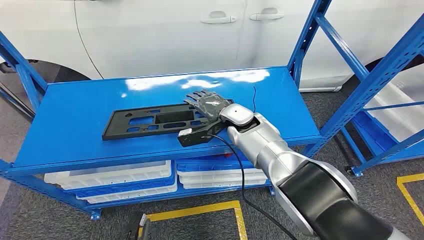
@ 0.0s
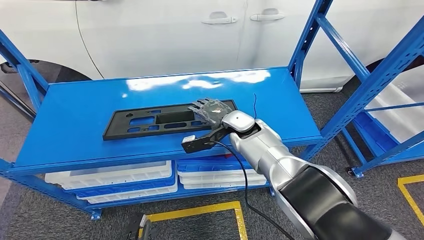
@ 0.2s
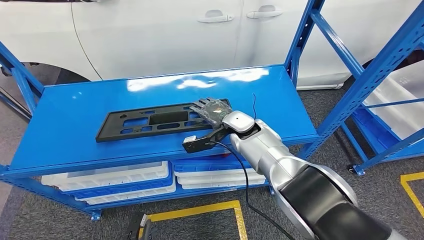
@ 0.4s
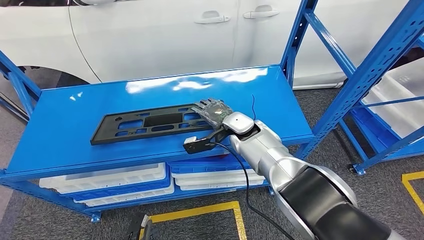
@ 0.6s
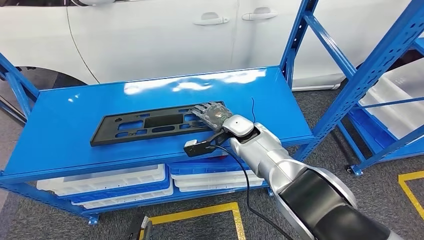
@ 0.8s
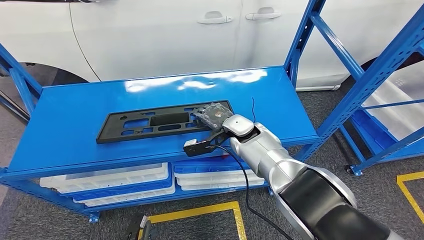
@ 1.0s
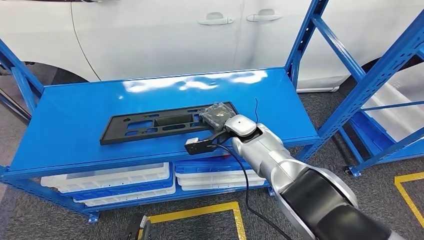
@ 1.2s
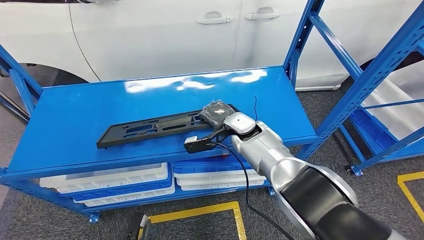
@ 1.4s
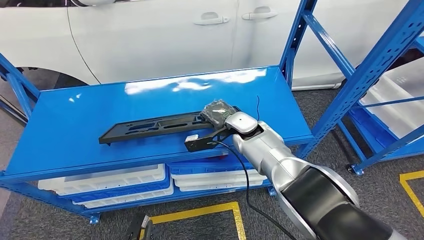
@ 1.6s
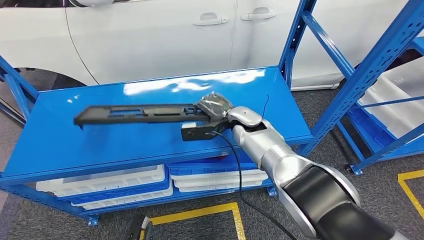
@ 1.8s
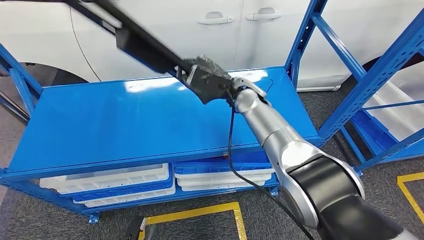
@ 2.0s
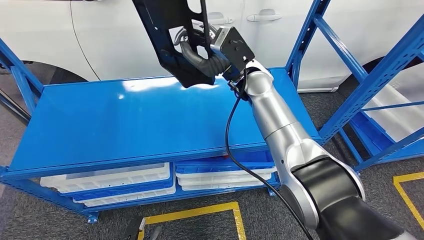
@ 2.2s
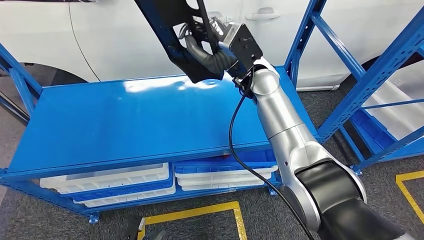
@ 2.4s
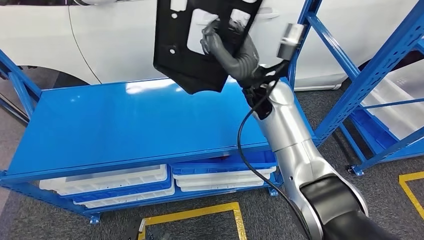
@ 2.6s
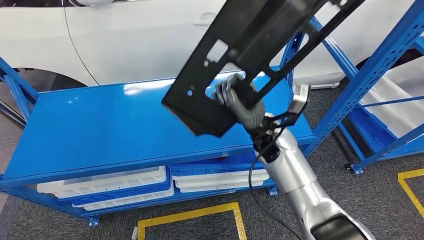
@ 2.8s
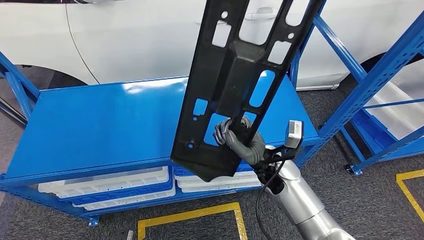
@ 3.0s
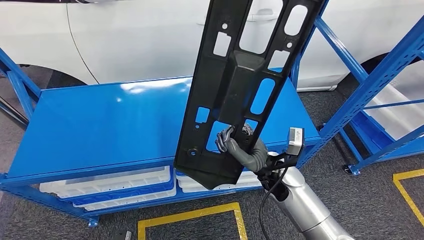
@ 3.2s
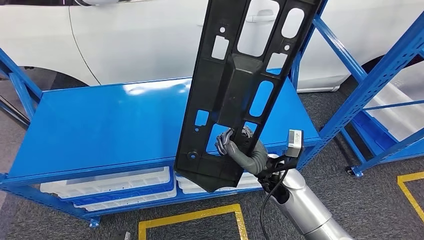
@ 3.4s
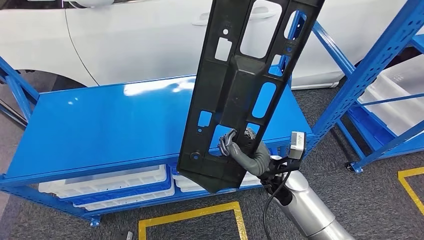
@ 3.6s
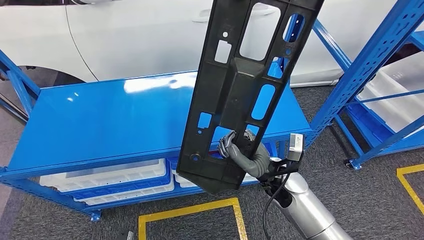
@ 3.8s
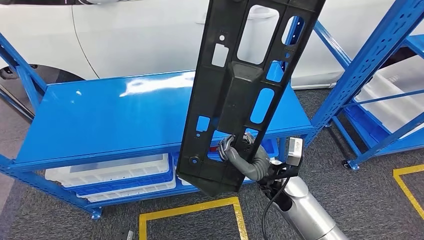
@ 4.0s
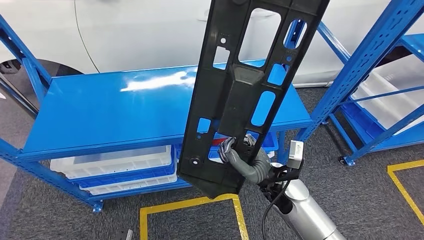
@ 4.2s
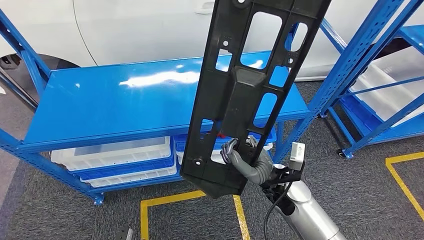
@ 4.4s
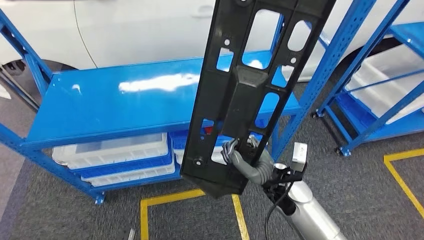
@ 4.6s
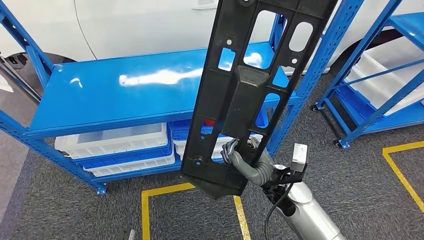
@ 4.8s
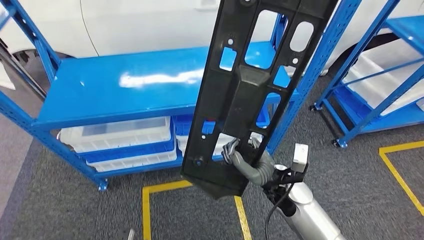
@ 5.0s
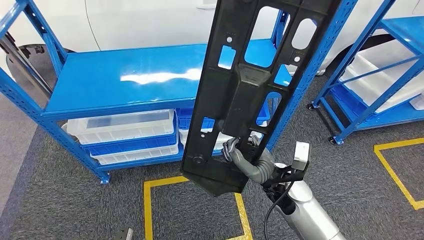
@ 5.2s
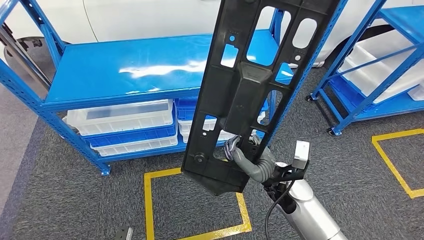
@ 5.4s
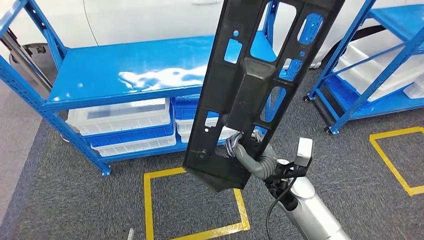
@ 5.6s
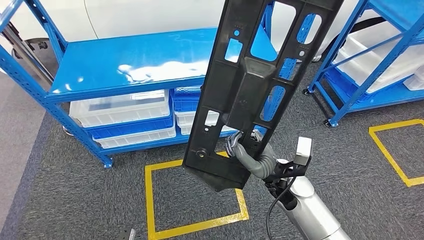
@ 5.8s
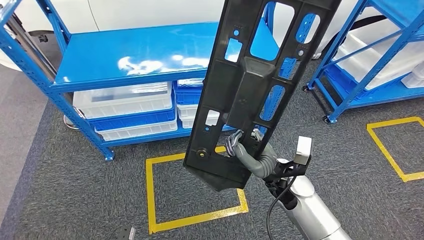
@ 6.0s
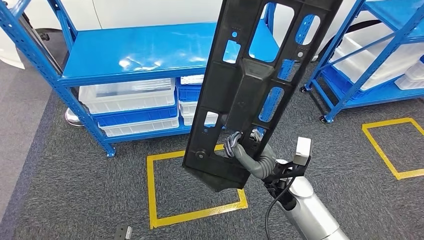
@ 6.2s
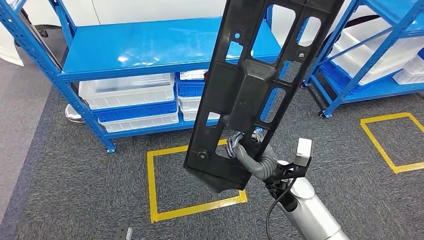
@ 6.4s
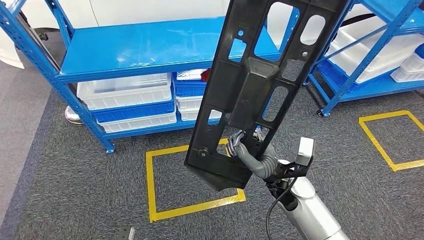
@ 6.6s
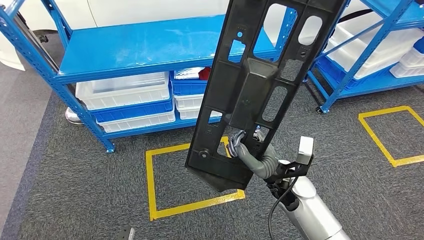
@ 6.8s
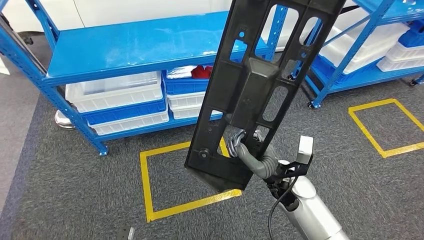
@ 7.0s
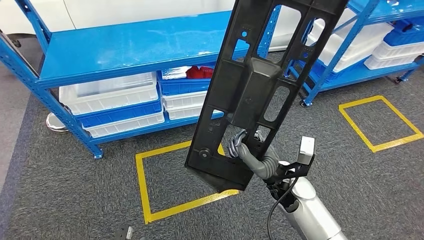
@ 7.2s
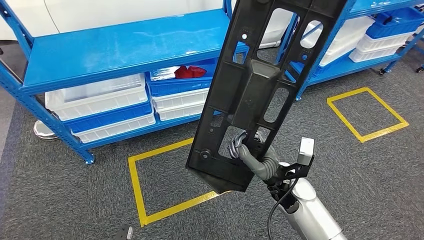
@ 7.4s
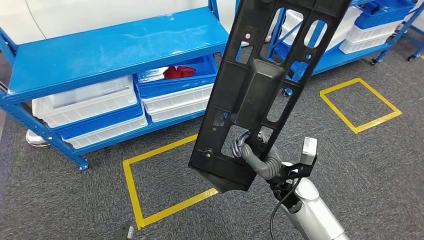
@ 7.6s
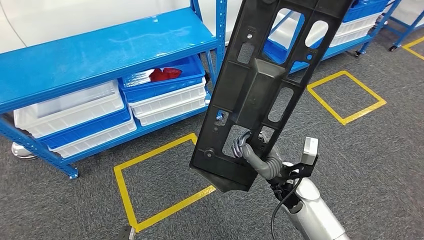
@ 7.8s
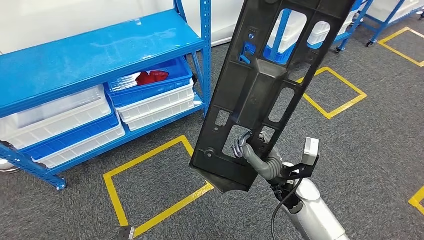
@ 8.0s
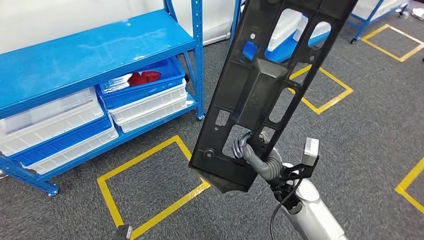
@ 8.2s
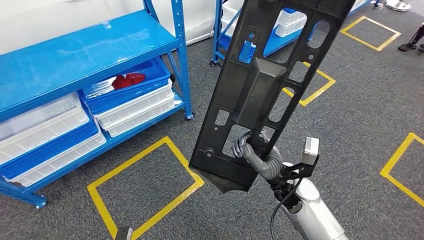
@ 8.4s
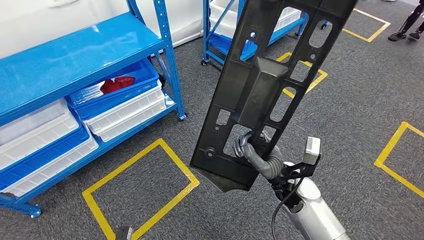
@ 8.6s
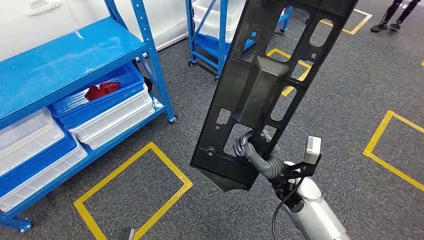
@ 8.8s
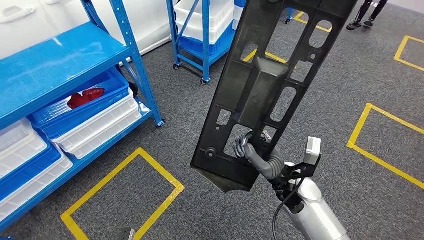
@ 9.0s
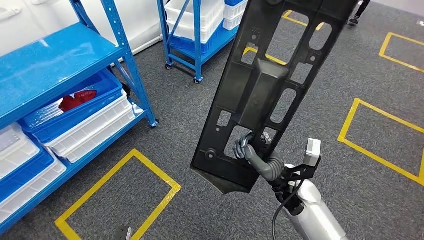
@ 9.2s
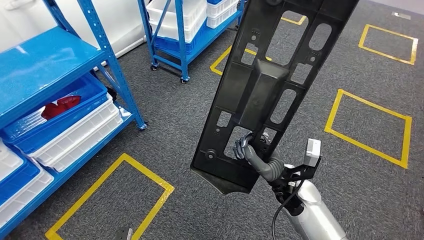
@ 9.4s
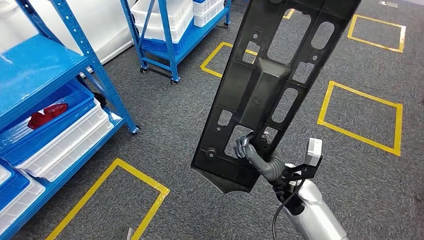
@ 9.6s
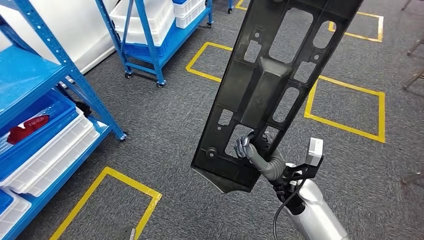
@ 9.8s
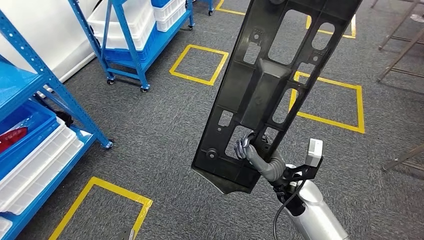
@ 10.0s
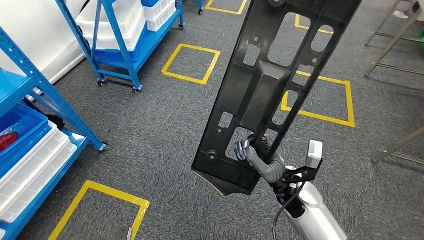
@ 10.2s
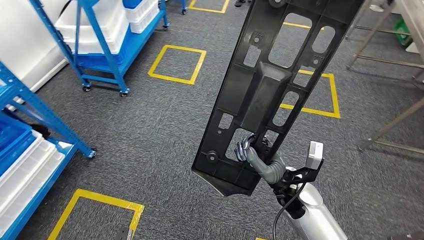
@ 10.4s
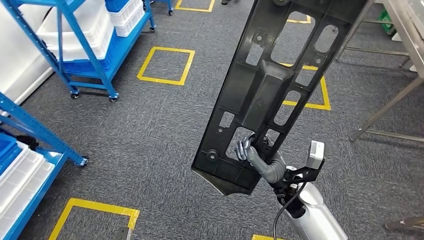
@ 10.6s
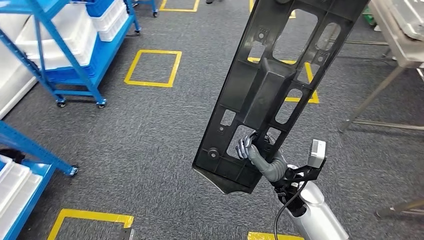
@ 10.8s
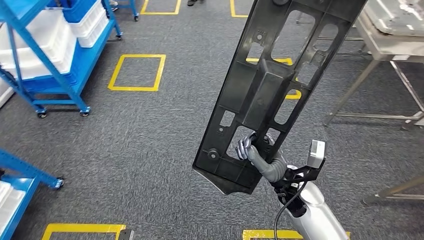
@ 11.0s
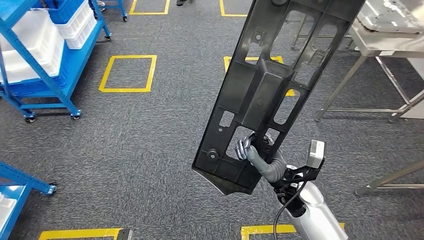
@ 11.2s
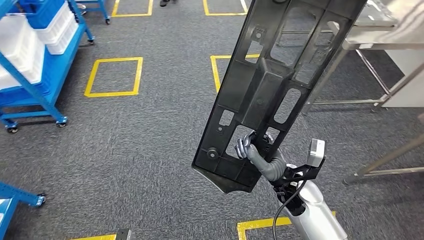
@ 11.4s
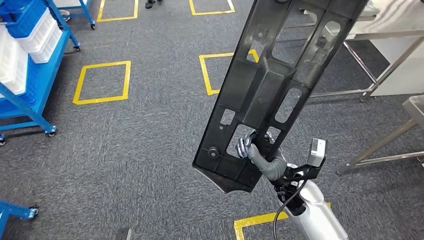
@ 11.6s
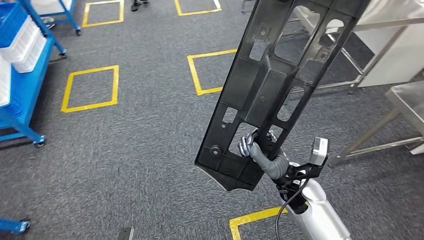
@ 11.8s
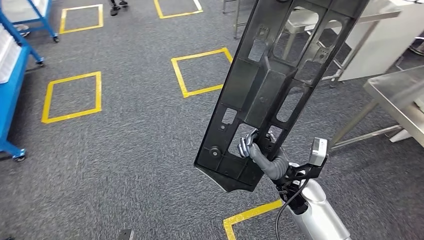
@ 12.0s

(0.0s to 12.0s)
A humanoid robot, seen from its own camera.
Step, 0.0s - 3.6s: Pick up the large material from the shelf.

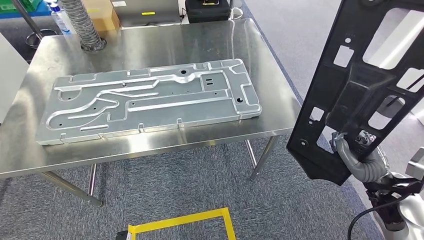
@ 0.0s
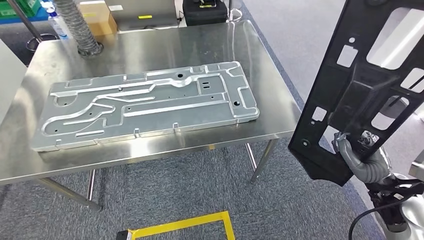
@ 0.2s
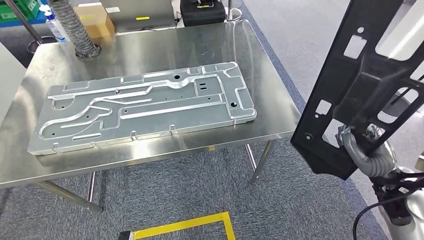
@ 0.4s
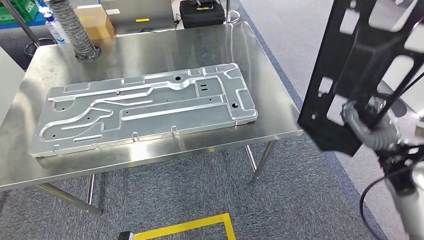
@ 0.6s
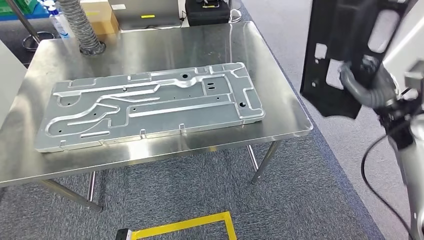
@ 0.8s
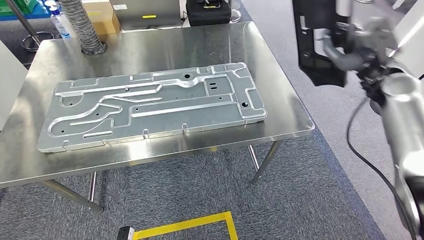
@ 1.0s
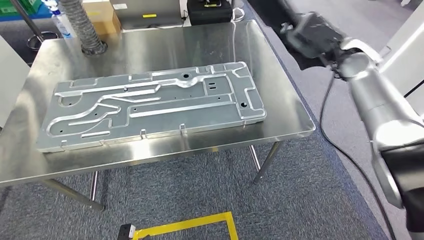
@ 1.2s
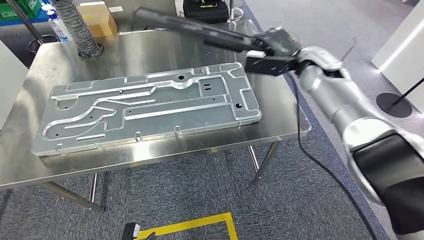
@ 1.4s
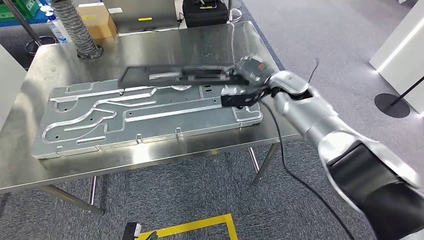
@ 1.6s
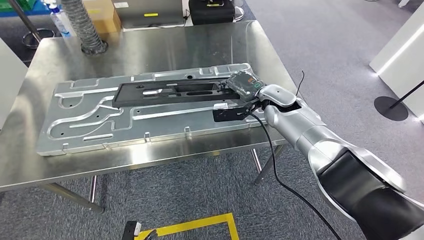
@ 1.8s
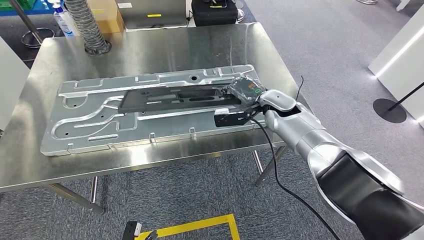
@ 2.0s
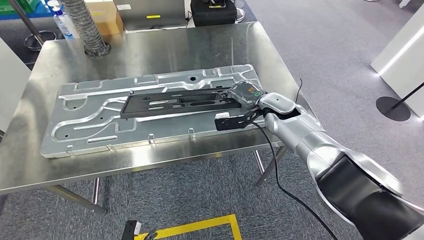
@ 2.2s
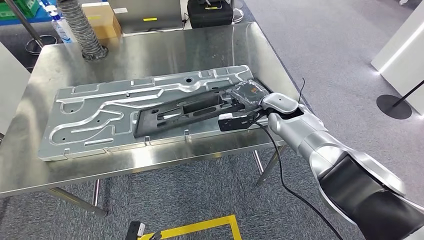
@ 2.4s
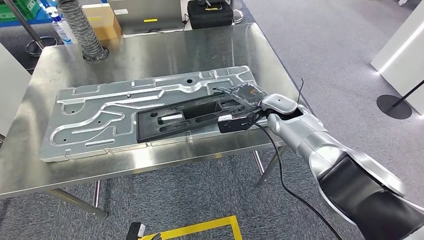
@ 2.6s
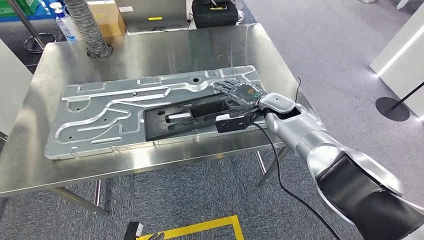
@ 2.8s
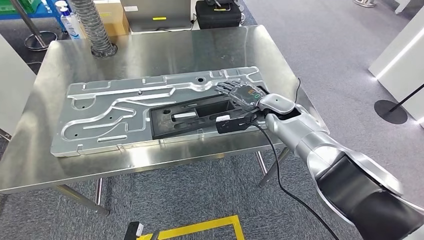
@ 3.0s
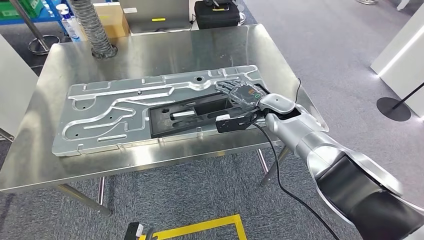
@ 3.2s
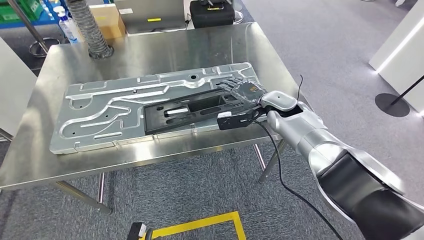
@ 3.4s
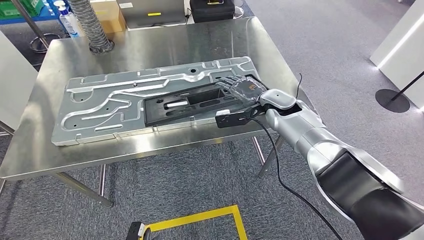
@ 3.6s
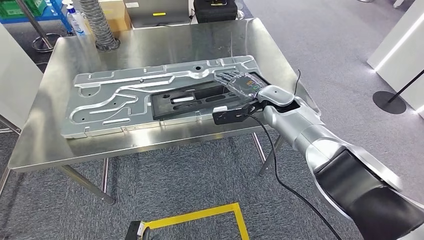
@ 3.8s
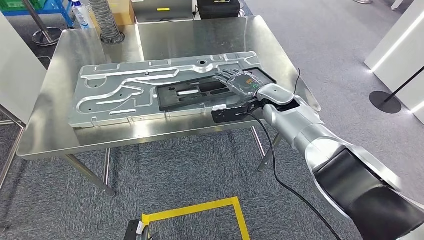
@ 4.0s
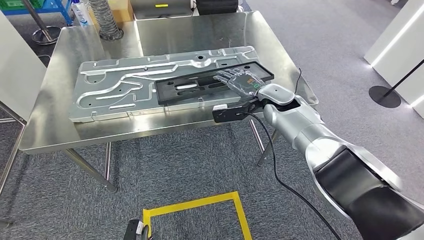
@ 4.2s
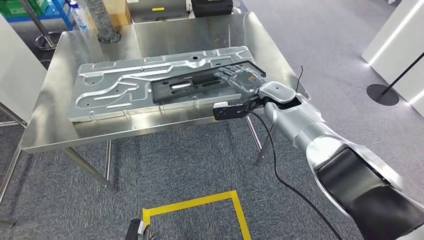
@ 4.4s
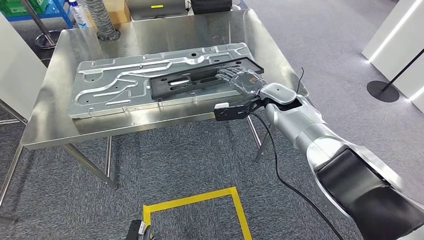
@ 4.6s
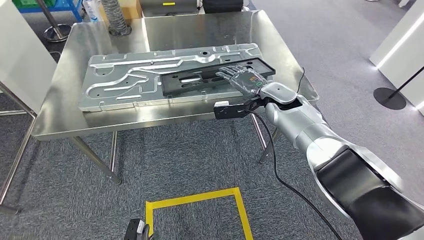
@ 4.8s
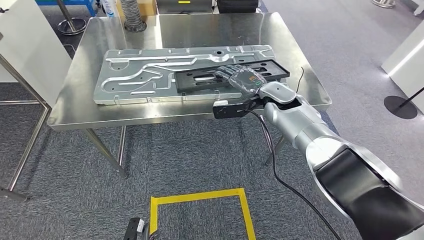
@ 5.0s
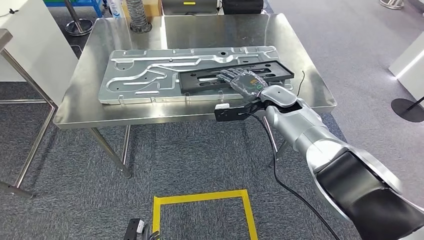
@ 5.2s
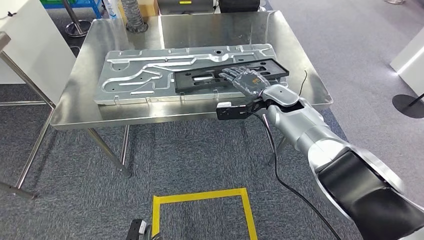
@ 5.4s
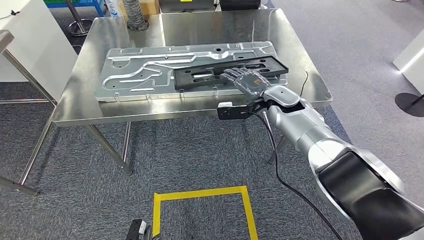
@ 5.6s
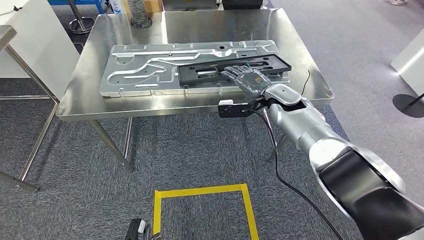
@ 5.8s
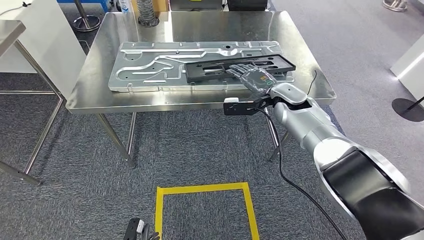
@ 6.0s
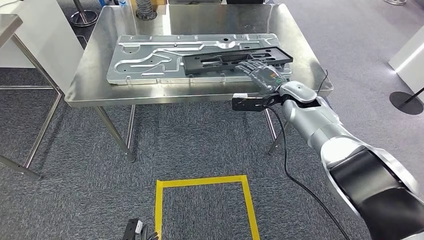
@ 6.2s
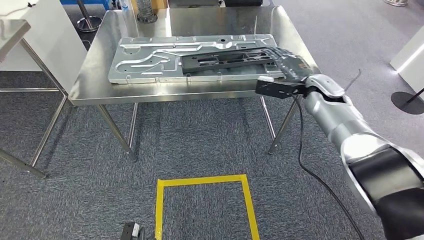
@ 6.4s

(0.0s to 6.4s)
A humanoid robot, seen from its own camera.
Step, 1.0s - 3.6s: Insert the large material into the corresponding slot on the workbench.
